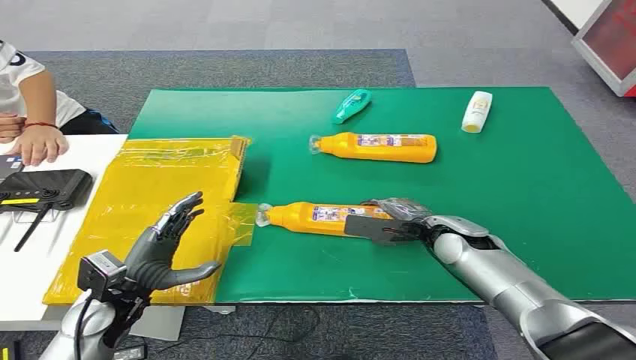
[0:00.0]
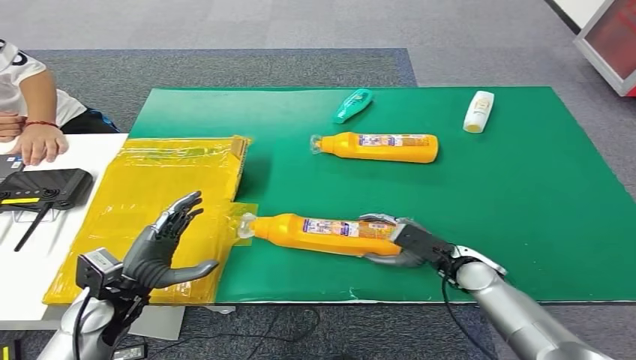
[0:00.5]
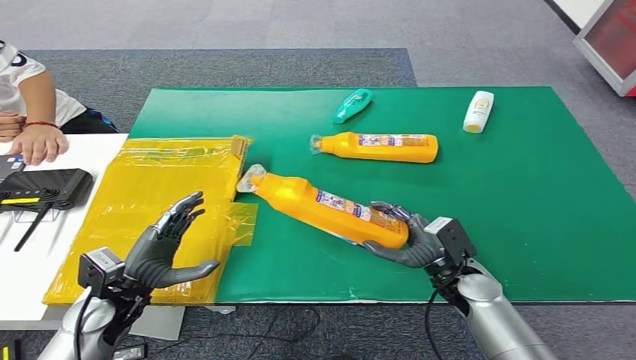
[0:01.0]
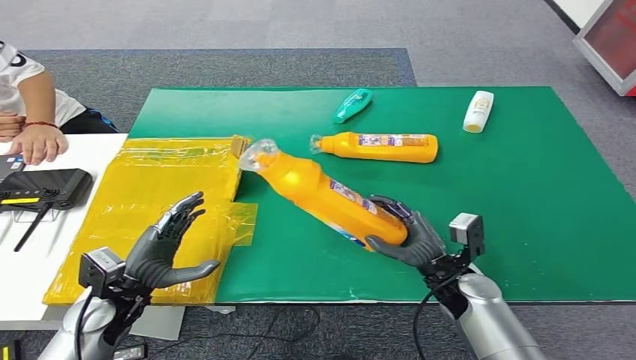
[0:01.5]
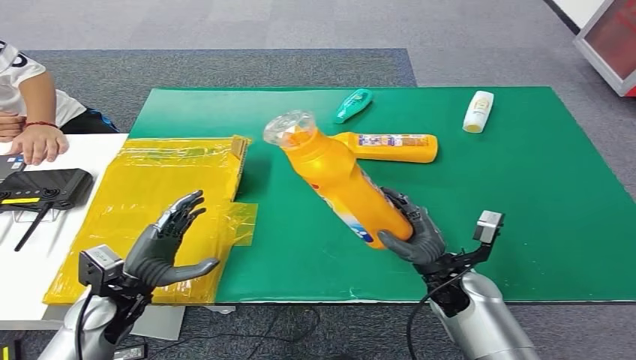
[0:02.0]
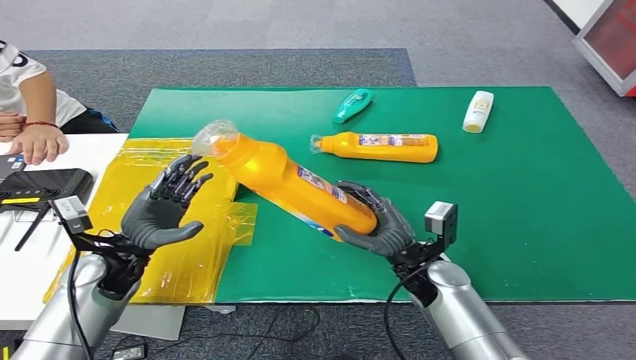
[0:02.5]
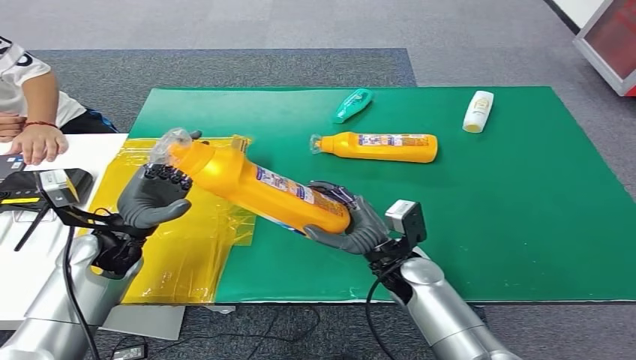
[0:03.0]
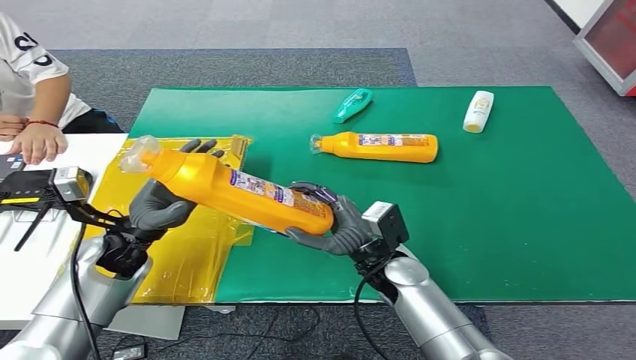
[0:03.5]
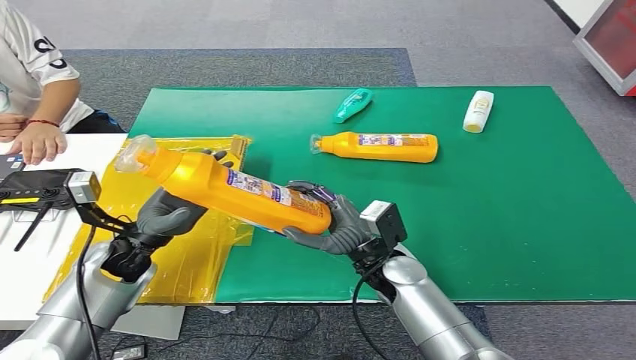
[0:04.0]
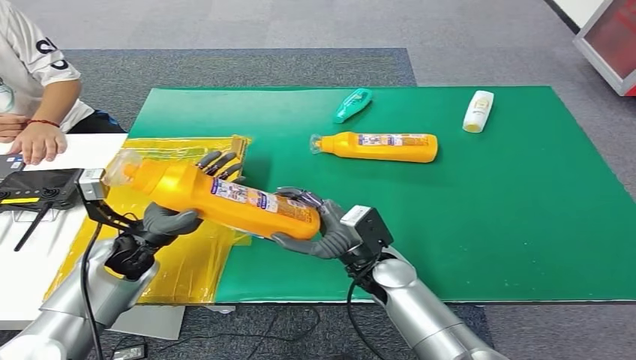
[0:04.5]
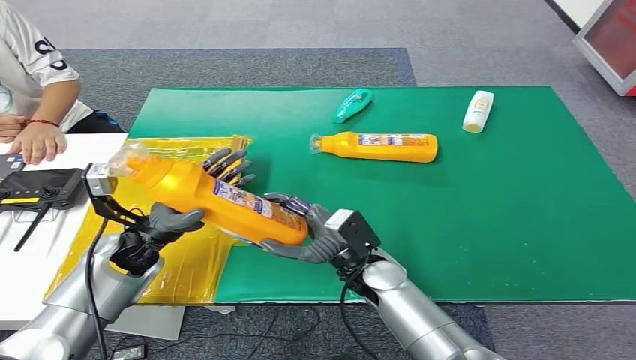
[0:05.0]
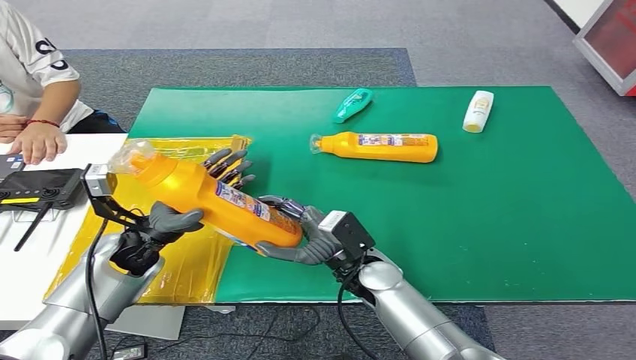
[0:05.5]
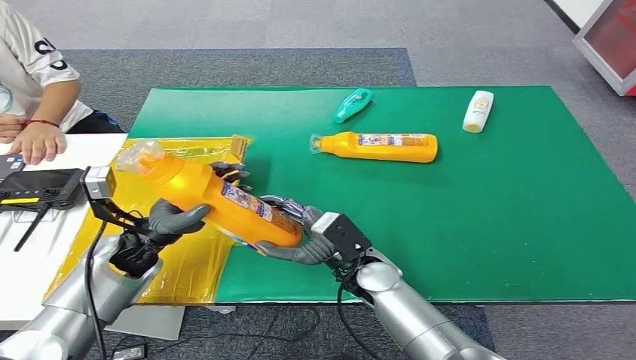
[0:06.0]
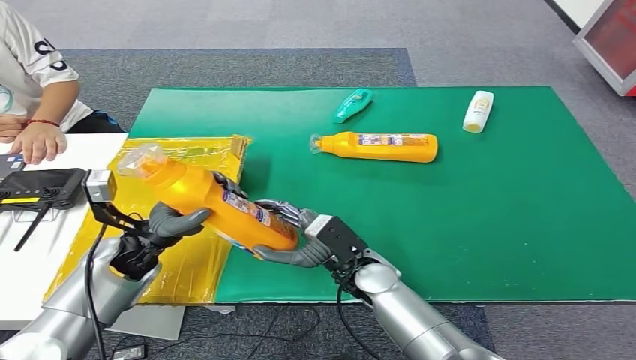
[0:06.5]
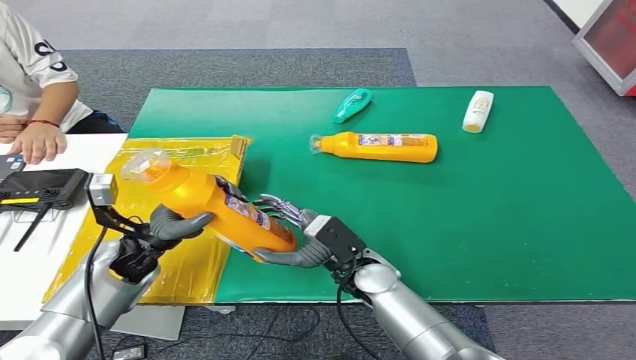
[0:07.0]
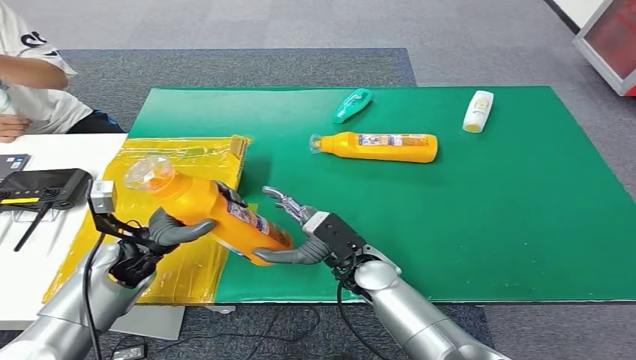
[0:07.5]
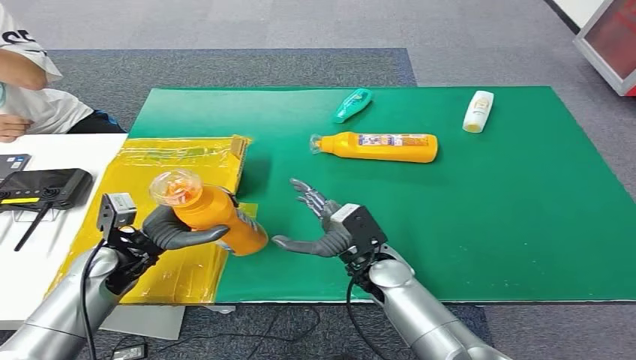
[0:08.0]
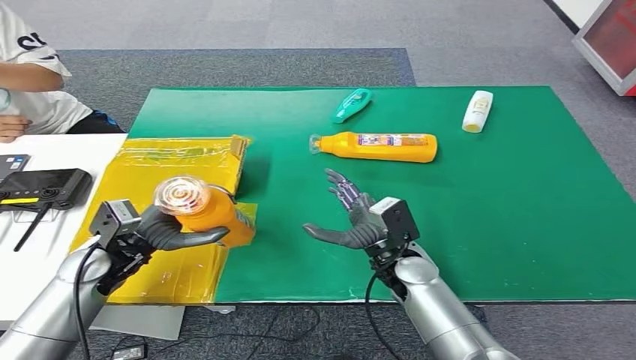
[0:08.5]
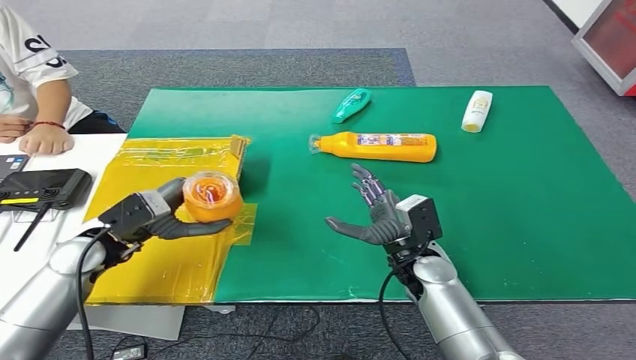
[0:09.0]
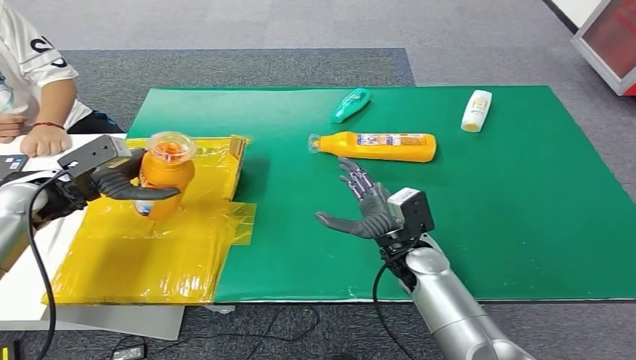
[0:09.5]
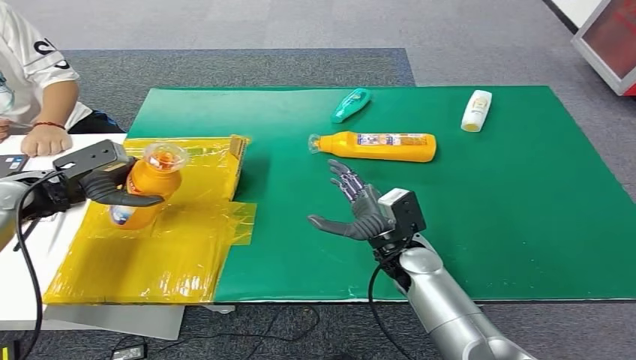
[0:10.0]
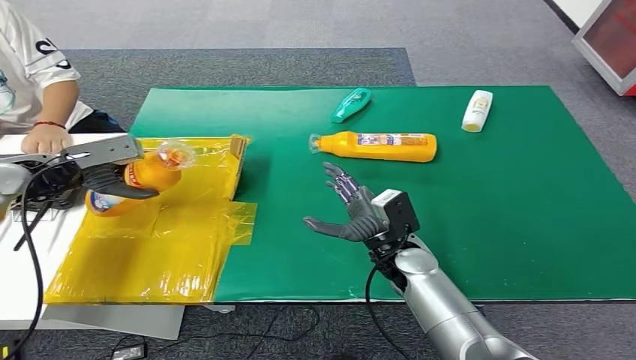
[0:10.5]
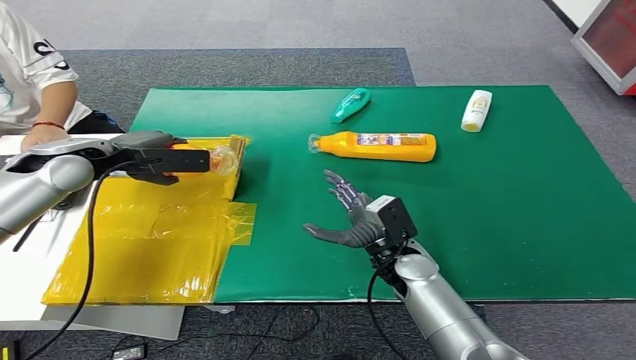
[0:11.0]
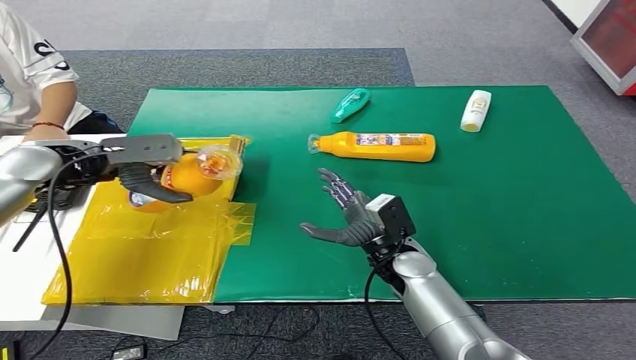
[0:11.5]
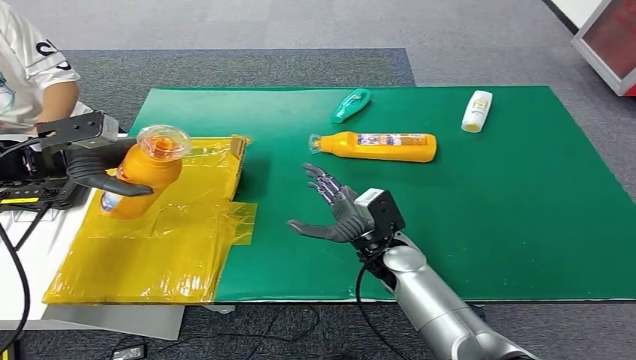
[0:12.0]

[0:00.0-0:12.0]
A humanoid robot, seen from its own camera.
Step, 0:00.0 to 0:03.0: Pick up the bottle from the table.
0:04.0 to 0:06.0: The hands move only a little.
0:10.0 to 0:12.0: The left hand shifts roughly 10 cm upward.

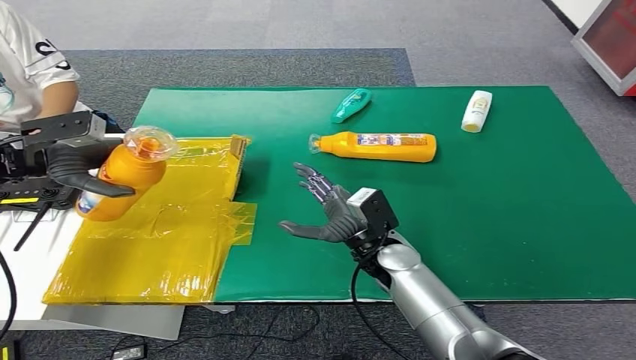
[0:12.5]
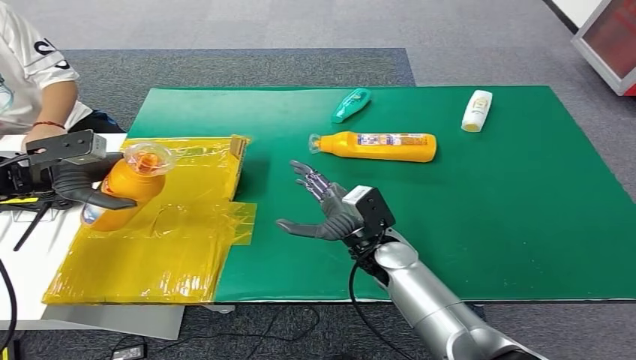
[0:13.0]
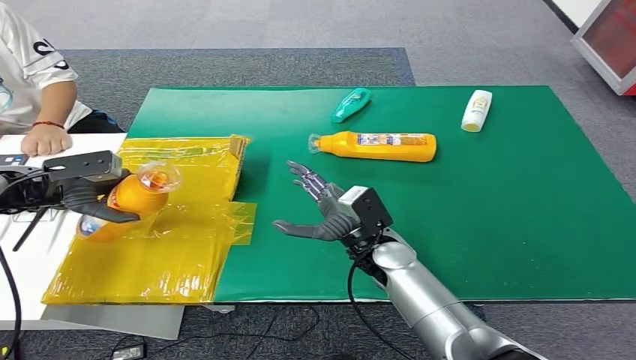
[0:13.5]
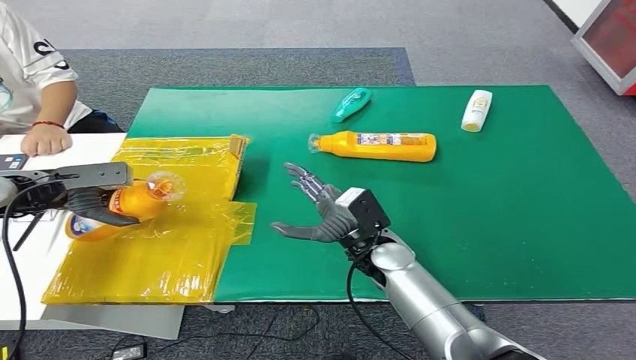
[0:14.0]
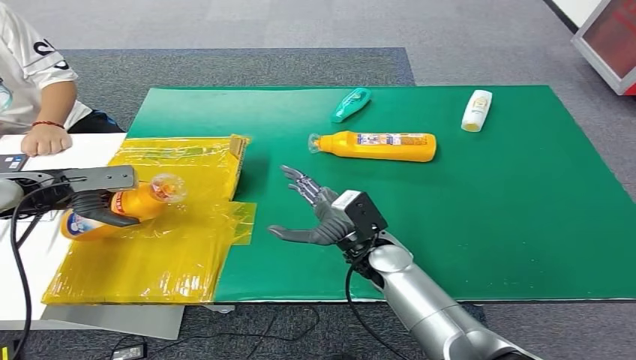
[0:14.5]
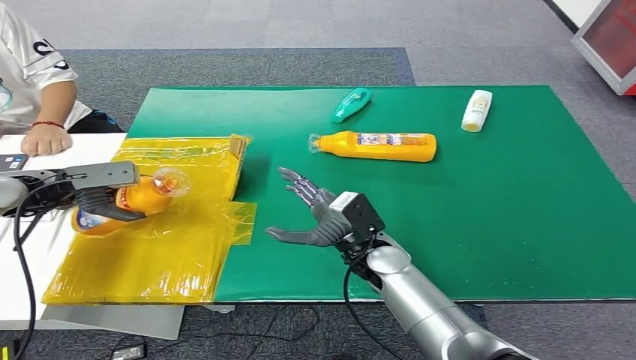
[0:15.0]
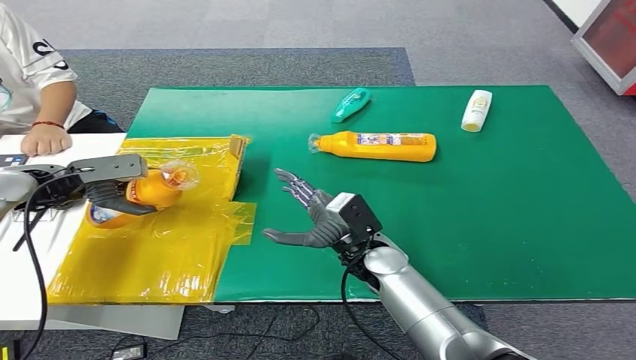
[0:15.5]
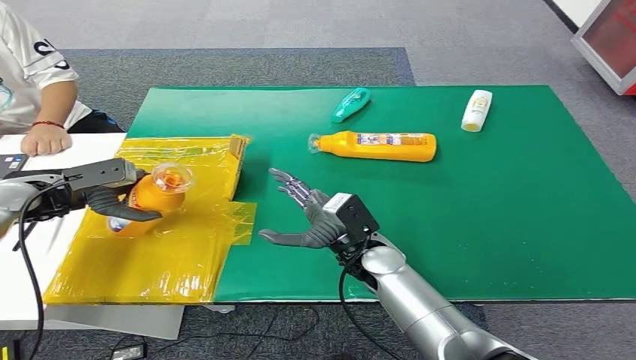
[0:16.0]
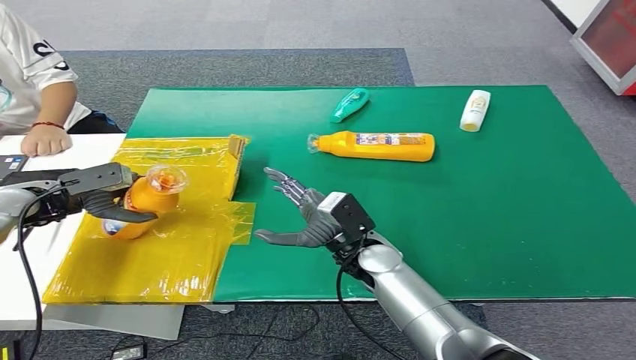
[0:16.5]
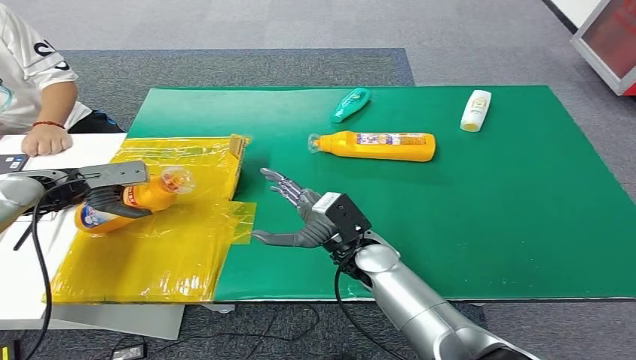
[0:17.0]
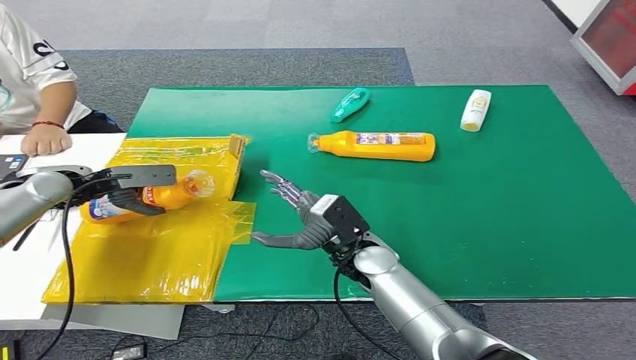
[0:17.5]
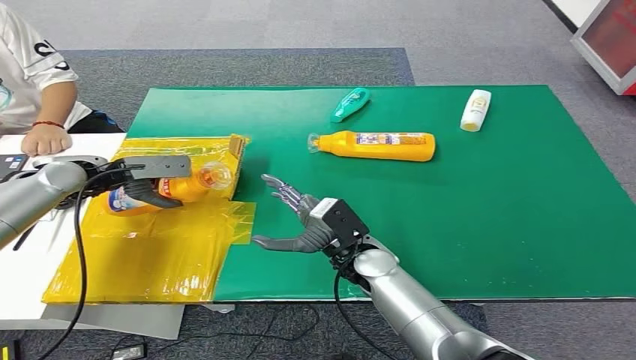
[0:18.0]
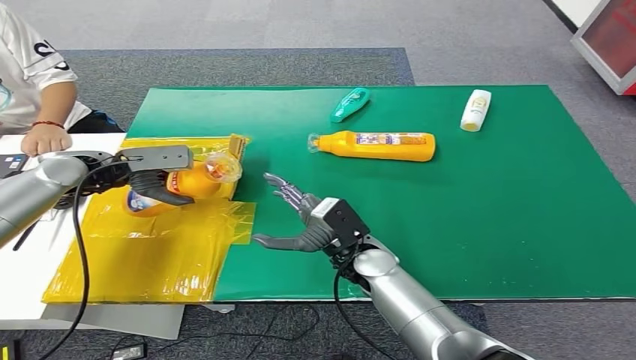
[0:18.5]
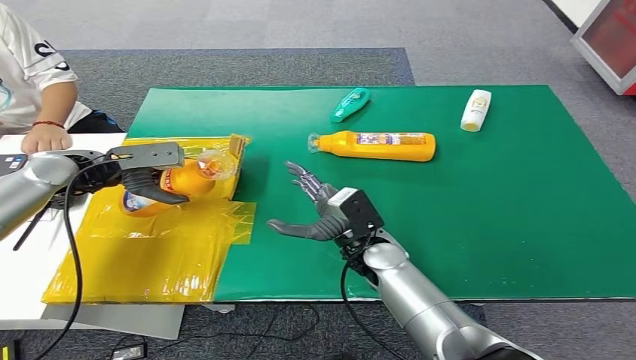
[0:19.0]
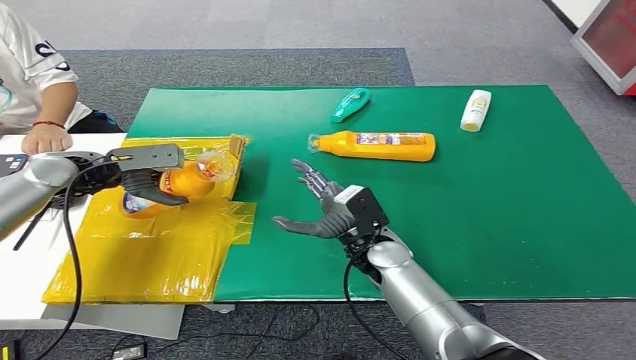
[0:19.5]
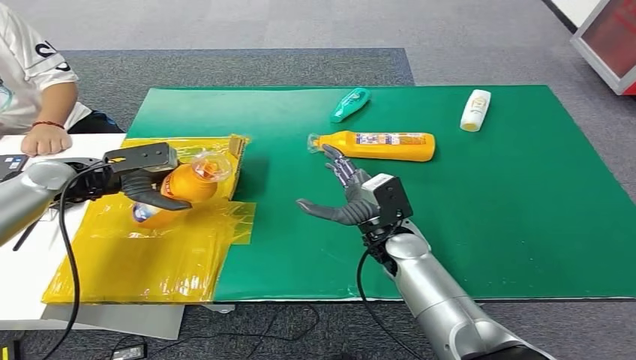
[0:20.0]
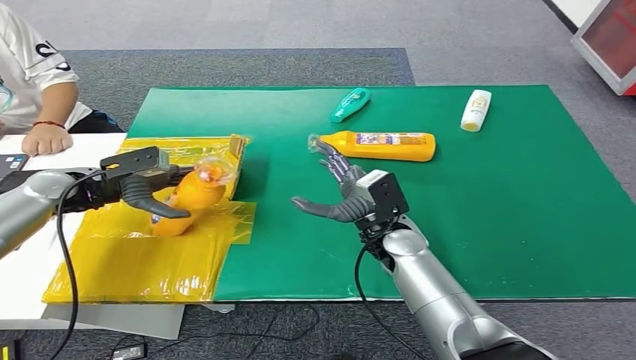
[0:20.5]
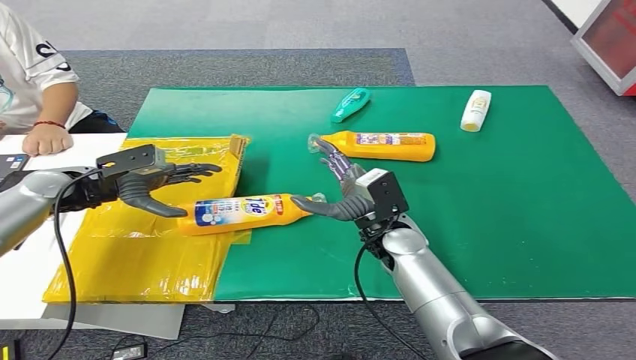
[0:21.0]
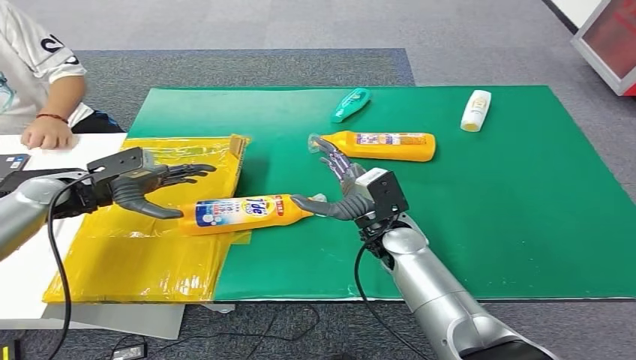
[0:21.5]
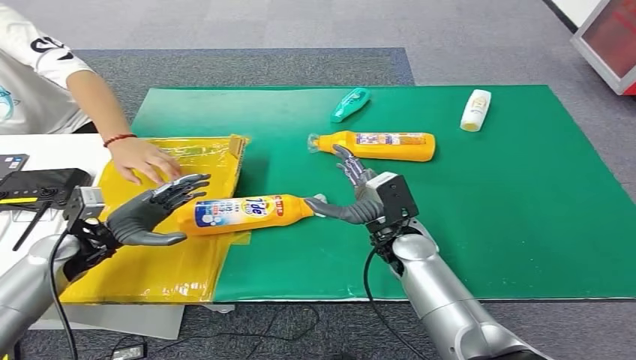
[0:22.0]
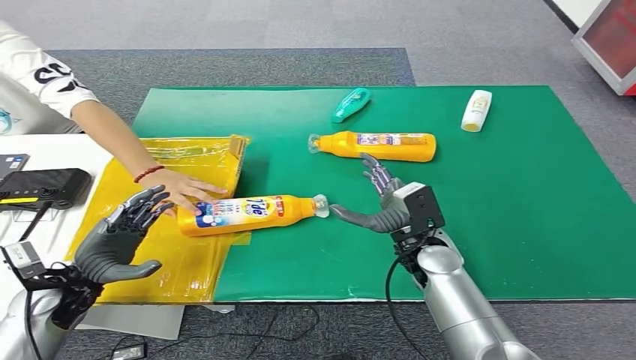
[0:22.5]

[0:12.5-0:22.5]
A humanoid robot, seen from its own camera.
Step, 0:12.5 to 0:22.0: Turn the bottle to the front side.
0:12.5 to 0:14.5: The left hand shifts approximately 10 cm downward.
0:14.5 to 0:16.5: There are only small adjustments of the hands.
0:16.5 to 0:18.5: The left hand heads to the right, covering approximately 10 cm.
0:18.5 to 0:20.5: The right hand shifts by approximately 5 cm.
